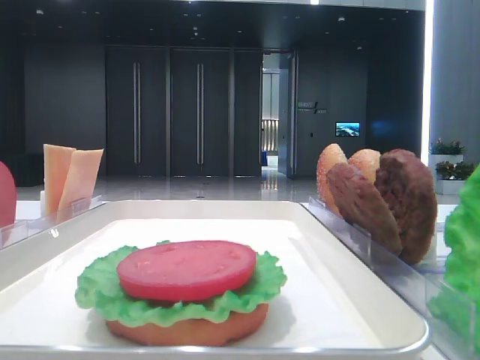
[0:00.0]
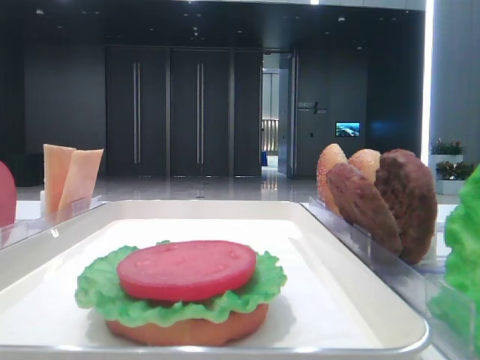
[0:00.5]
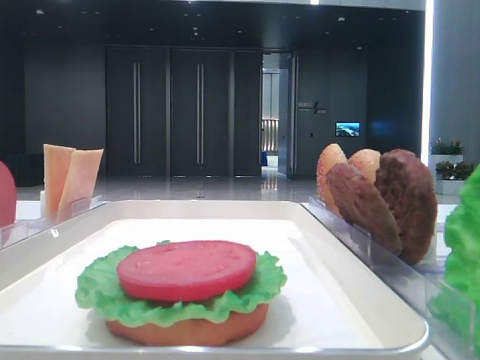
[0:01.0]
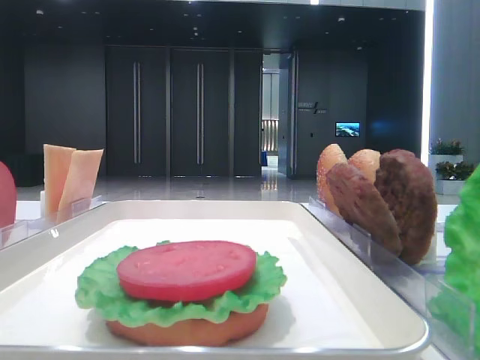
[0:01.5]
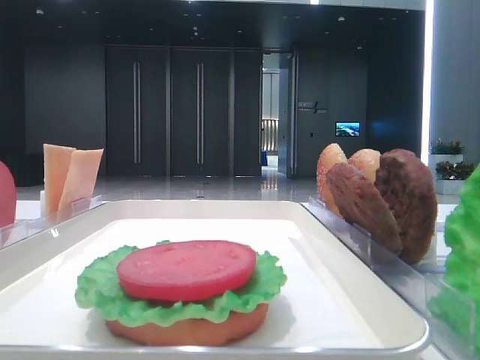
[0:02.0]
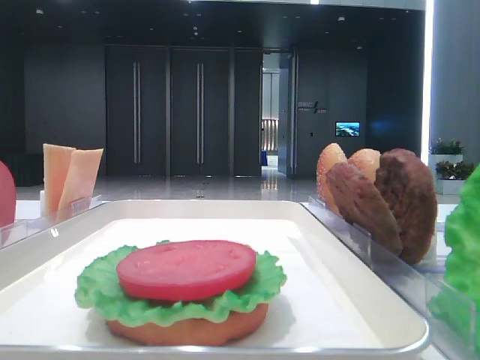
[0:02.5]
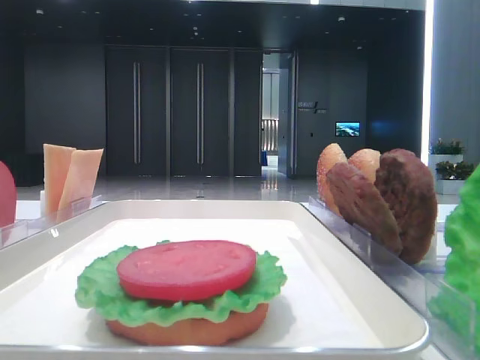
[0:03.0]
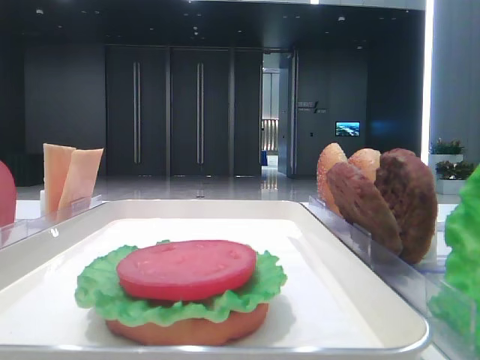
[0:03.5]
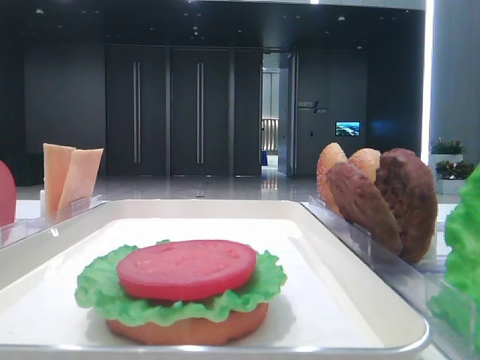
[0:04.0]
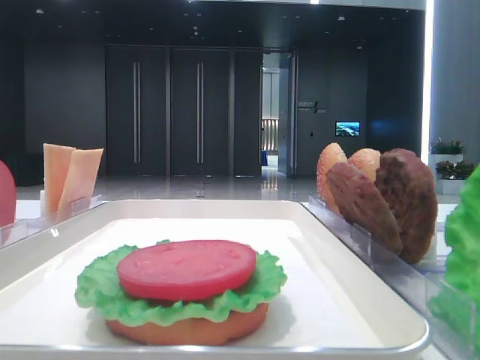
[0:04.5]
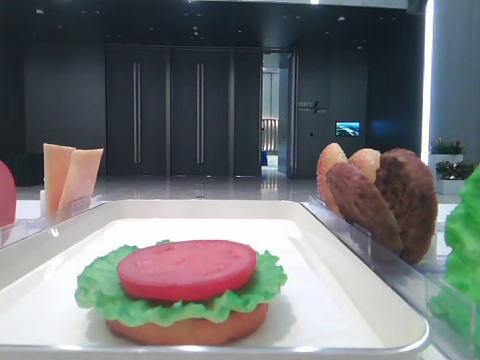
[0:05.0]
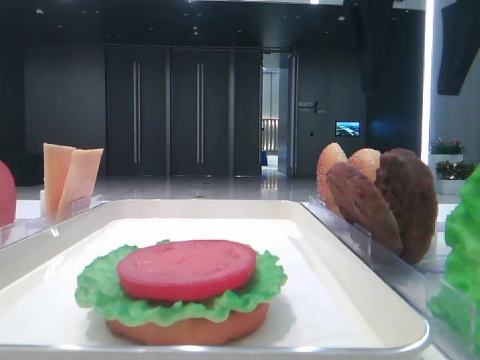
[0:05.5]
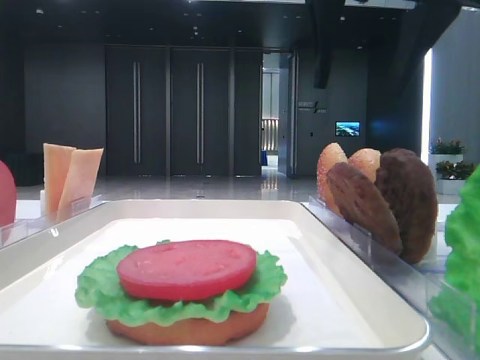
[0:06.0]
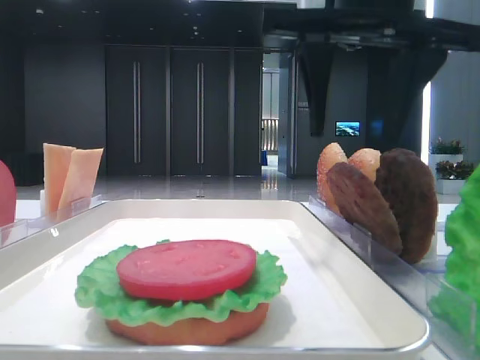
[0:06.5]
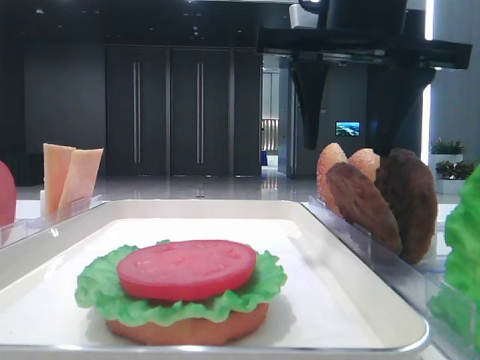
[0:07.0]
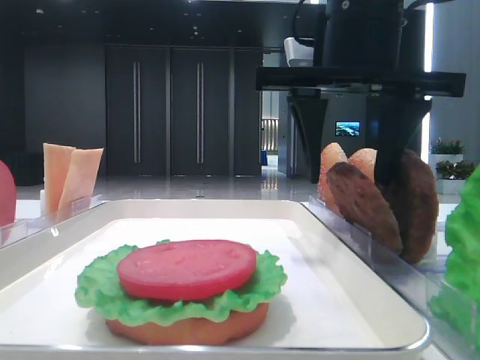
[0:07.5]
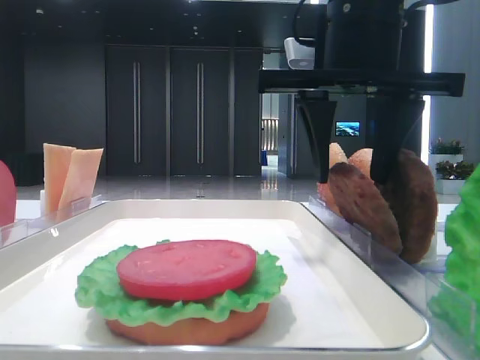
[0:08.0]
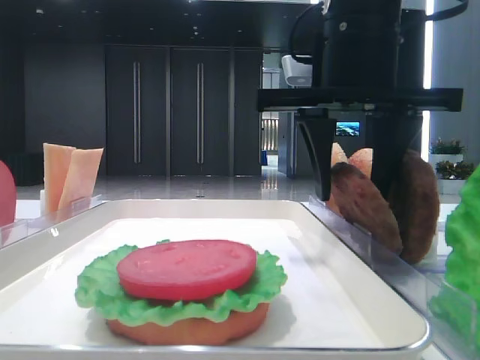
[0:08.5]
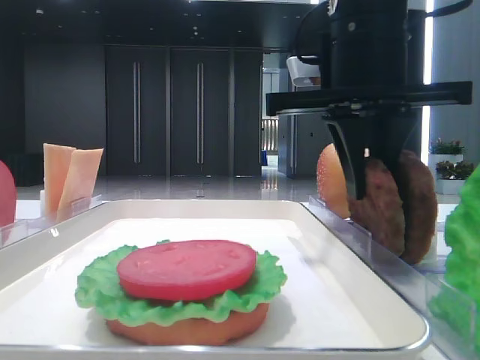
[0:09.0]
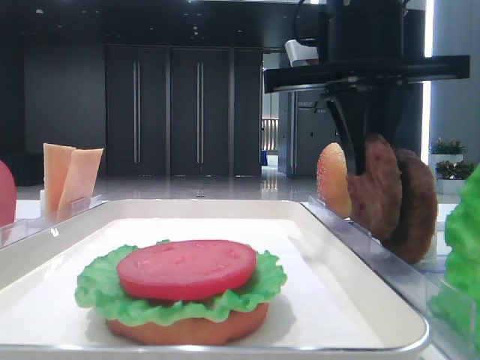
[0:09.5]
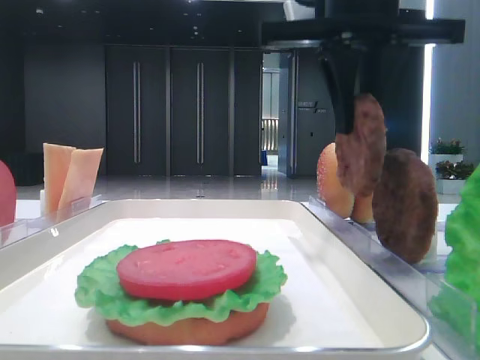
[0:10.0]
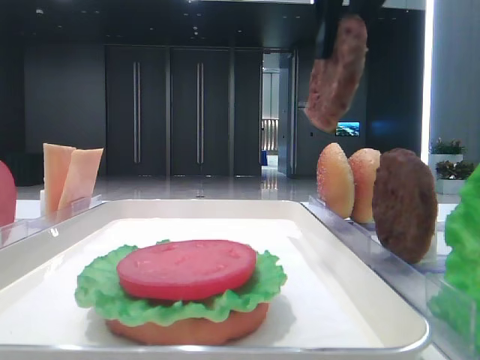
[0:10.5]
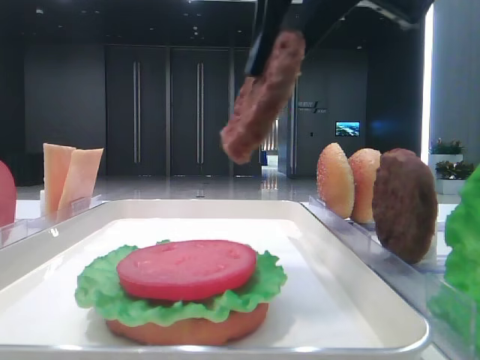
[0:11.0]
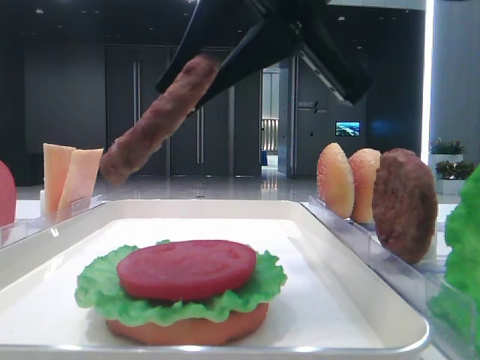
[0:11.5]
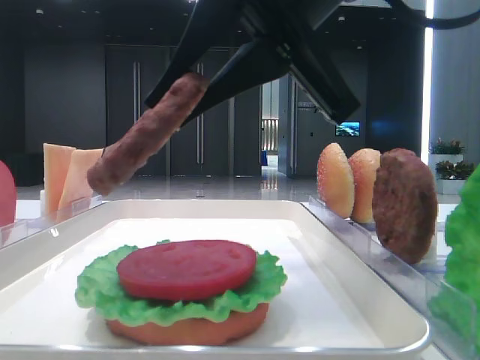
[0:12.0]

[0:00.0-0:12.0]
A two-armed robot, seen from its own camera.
Step, 0:00.0 to 0:09.5: Grab the patty with the right hand.
0:04.0 to 0:06.0: The right gripper goes roughly 20 cm to the left.
0:06.0 to 0:08.0: The right gripper heads downward, covering about 5 cm.
0:08.0 to 0:10.0: The right gripper closes.
0:10.0 to 0:12.0: The right gripper shifts approximately 10 cm backward.

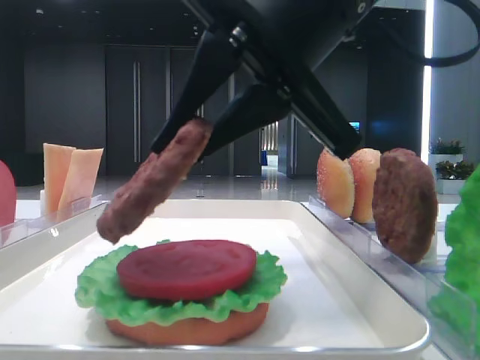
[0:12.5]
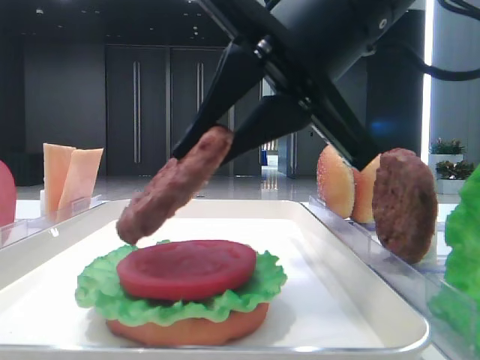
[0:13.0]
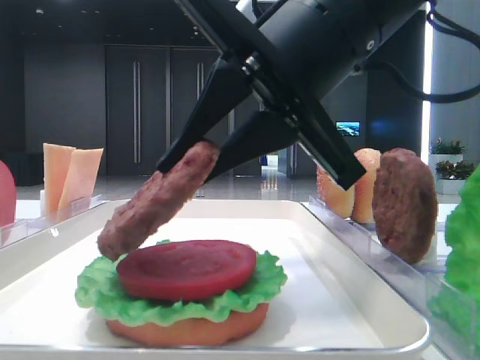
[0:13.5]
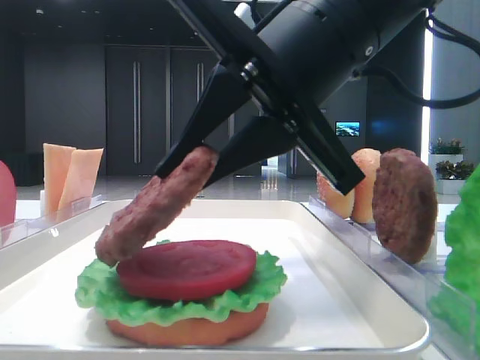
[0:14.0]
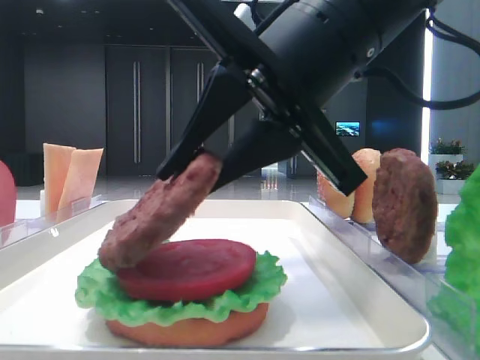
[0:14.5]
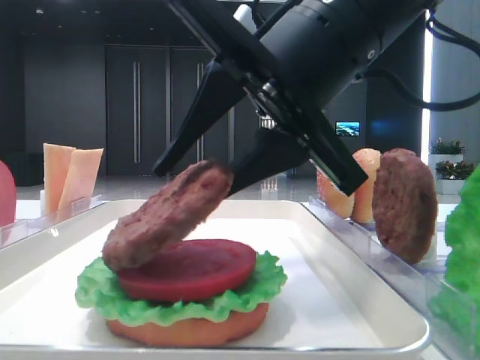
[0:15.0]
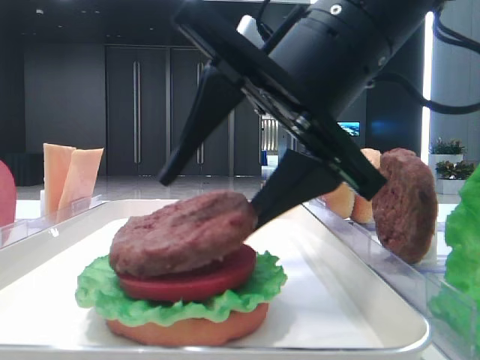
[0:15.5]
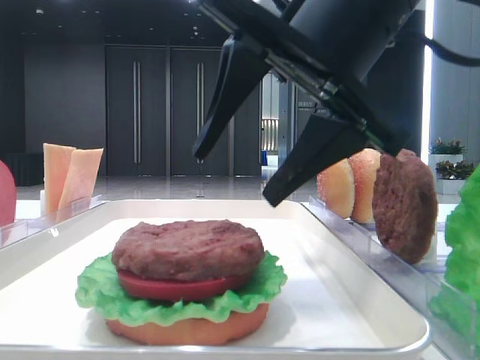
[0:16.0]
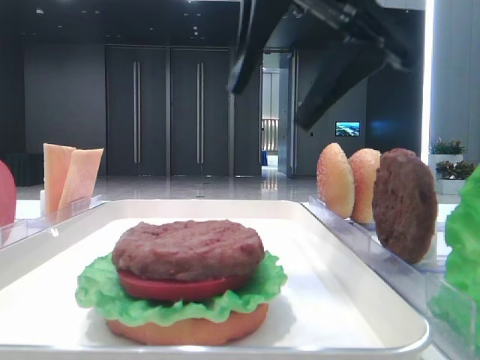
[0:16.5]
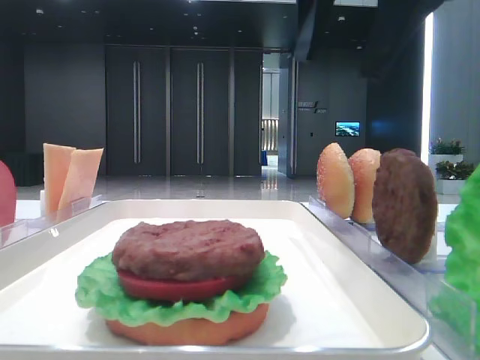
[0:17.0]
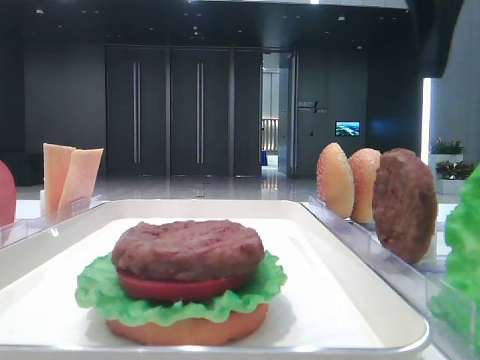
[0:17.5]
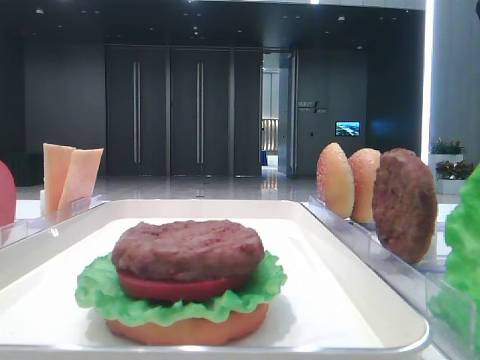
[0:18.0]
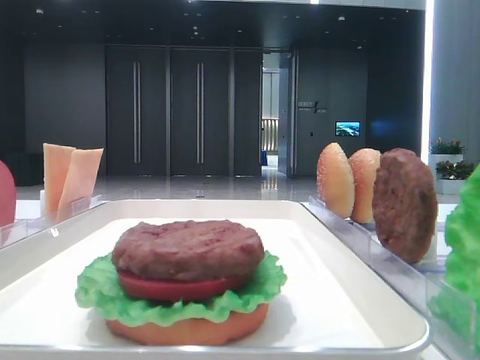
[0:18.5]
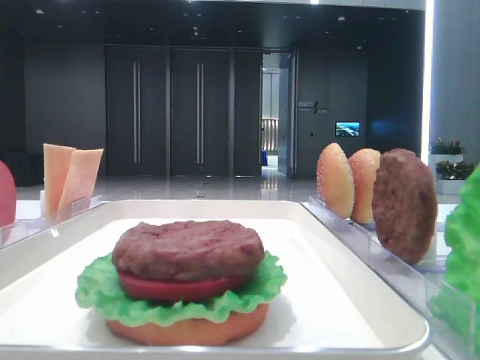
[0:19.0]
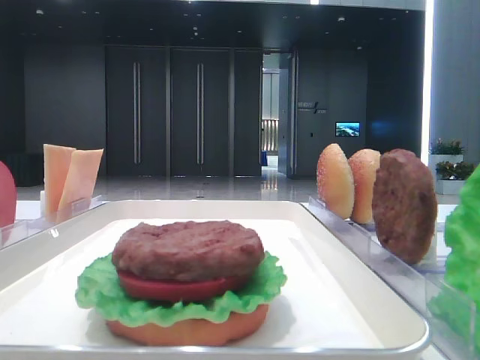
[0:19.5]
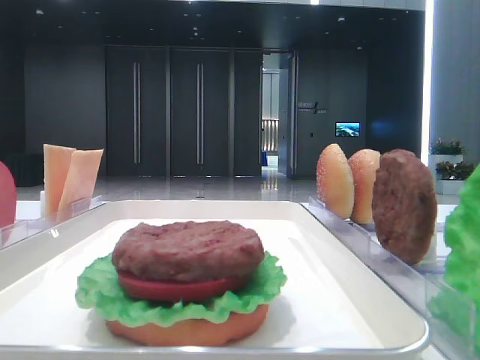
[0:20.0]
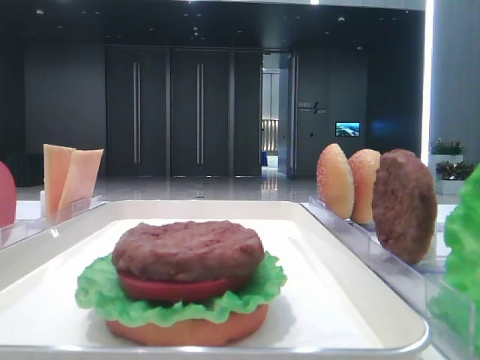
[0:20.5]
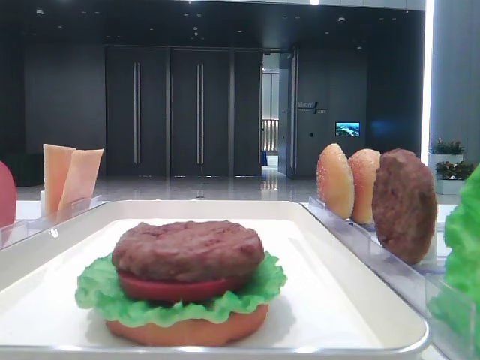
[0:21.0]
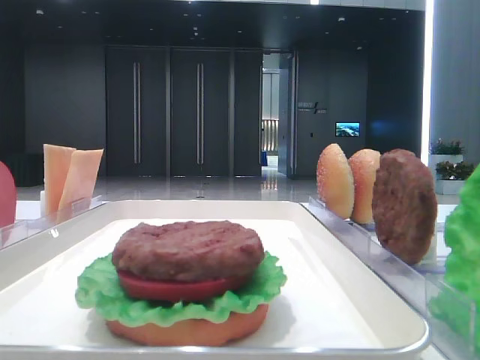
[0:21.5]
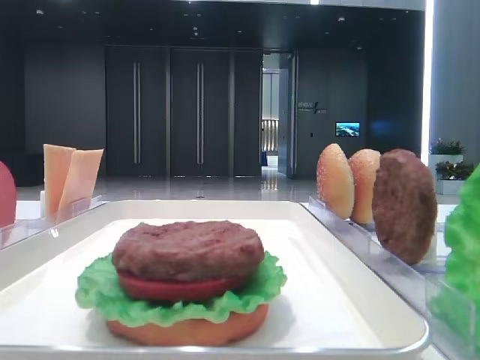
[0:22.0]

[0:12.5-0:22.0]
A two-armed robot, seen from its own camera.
Step, 0:12.5 to 0:15.5: Place the patty on the tomato slice with the right hand.
0:12.5 to 0:14.5: There are only small adjustments of the grippers.
0:14.5 to 0:16.5: The right gripper shifts approximately 5 cm upward, and opens its fingers.
0:16.5 to 0:18.0: The right gripper moves to the right, some 15 cm.
0:18.0 to 0:20.0: The right gripper shifts about 30 cm backward.
0:20.0 to 0:22.0: The two grippers keep their place.

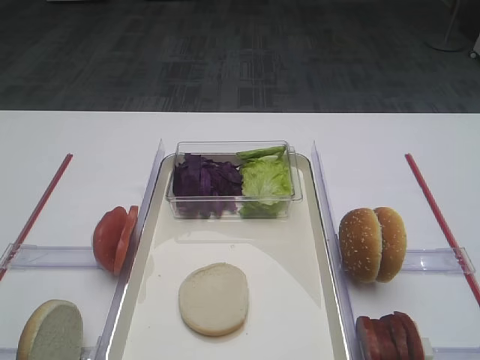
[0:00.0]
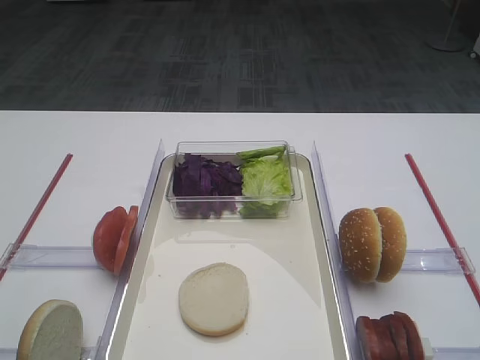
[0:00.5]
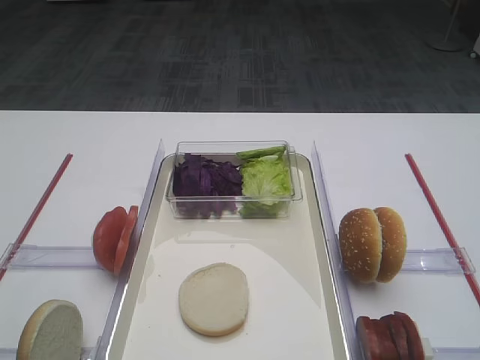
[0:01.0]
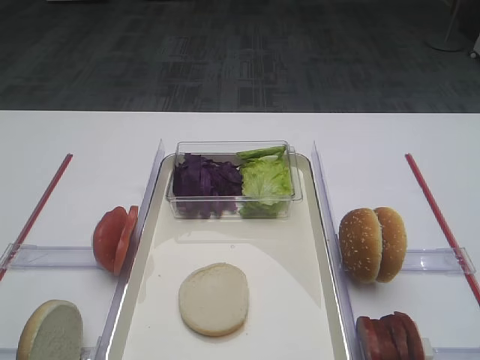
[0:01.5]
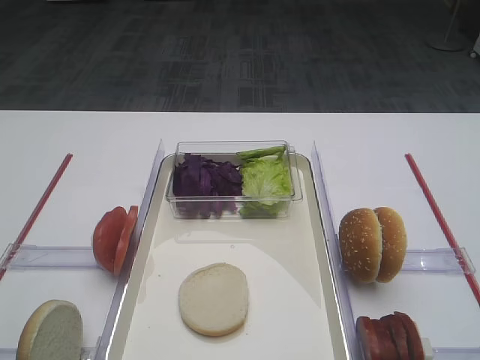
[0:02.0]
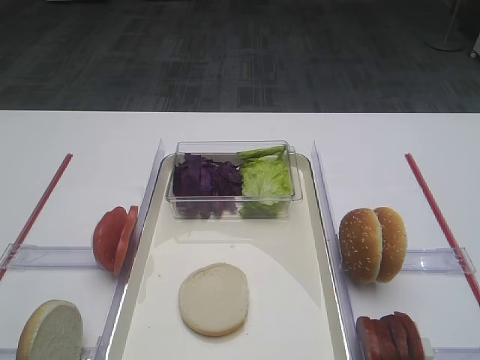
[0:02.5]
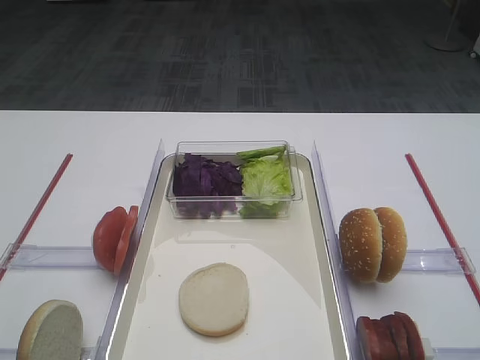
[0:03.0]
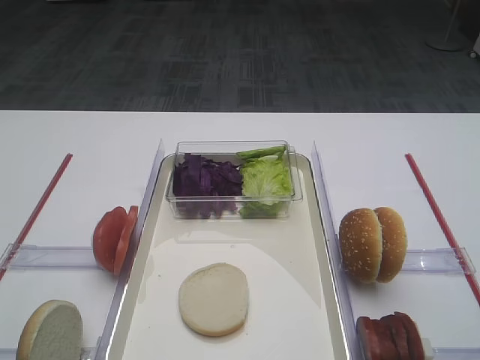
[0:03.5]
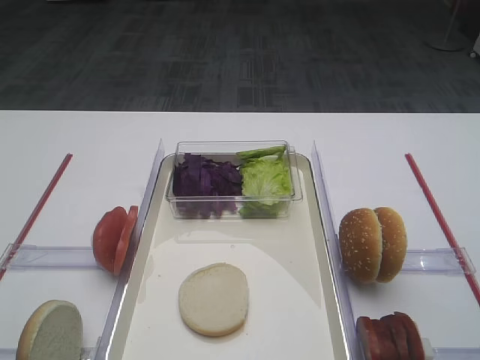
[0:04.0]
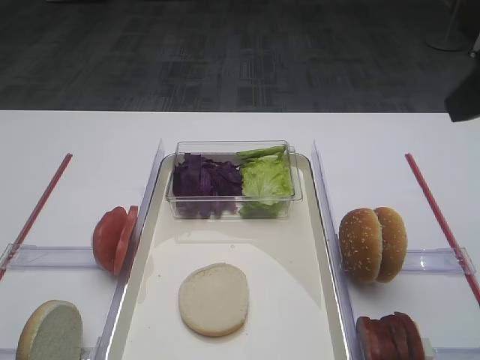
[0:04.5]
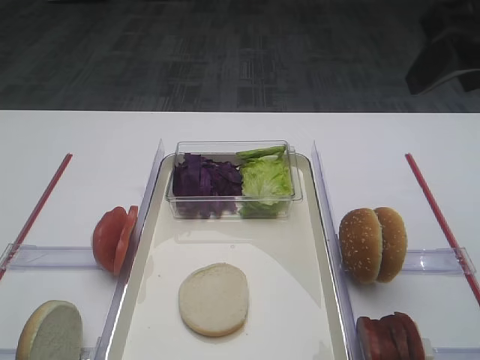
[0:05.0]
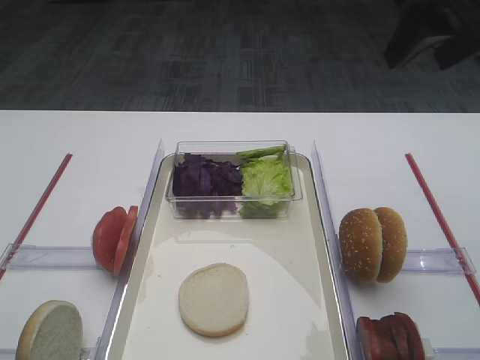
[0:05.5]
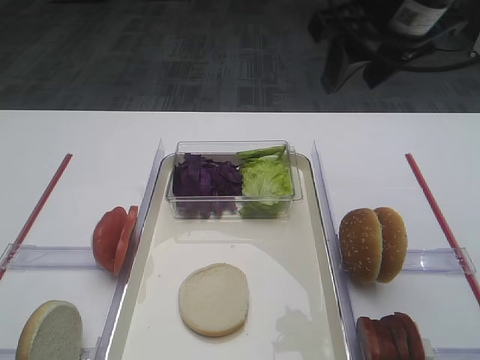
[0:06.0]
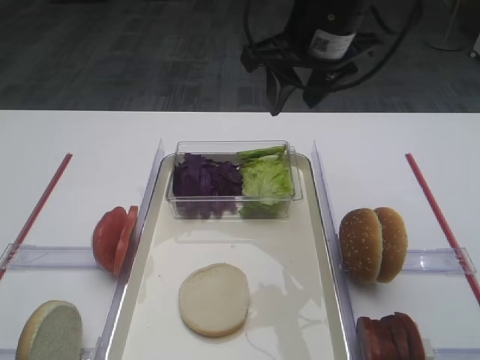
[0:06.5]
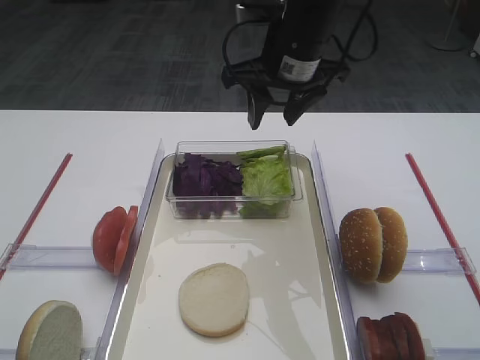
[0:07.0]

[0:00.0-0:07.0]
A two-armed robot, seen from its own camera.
0:03.5 to 0:05.0: The right gripper is displaced forward by about 15 cm.
0:05.0 to 0:07.0: The right gripper shifts some 25 cm forward, to the left and downward.
